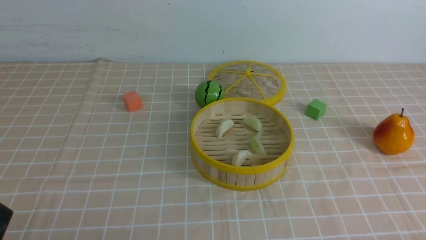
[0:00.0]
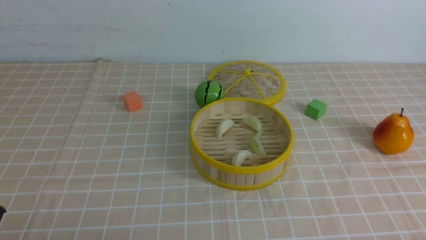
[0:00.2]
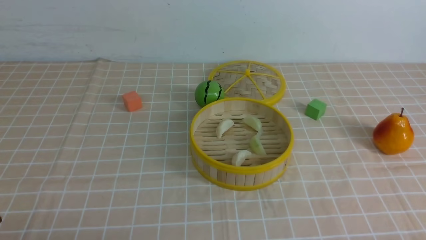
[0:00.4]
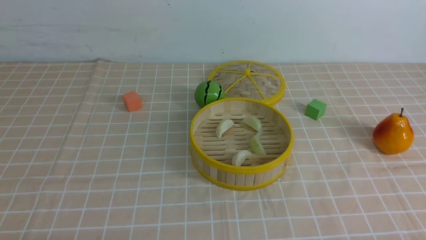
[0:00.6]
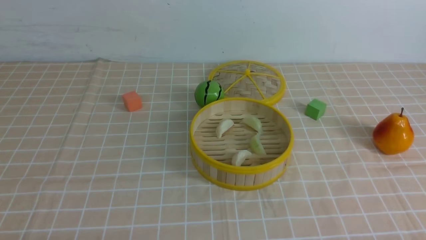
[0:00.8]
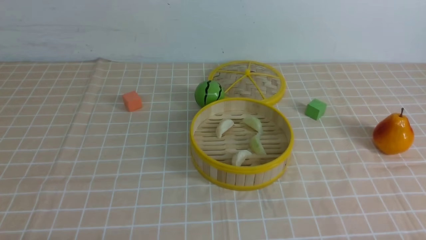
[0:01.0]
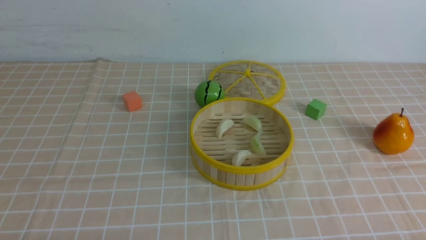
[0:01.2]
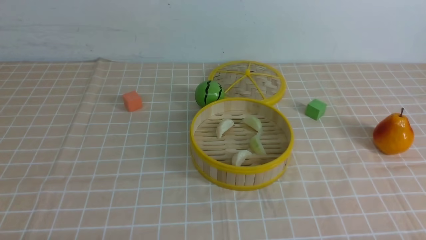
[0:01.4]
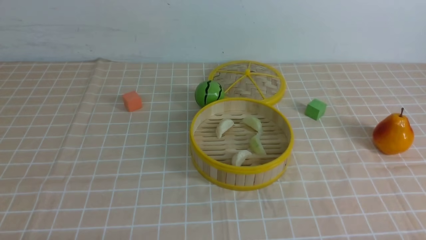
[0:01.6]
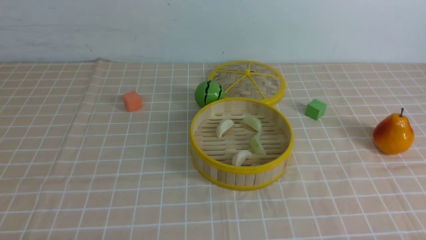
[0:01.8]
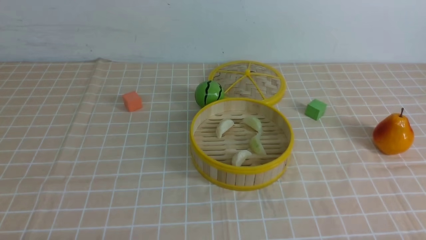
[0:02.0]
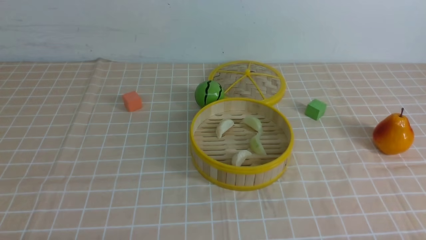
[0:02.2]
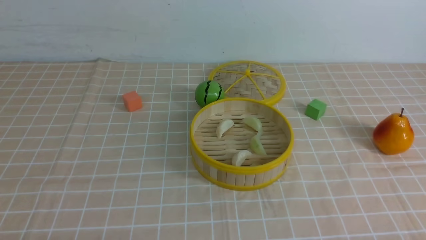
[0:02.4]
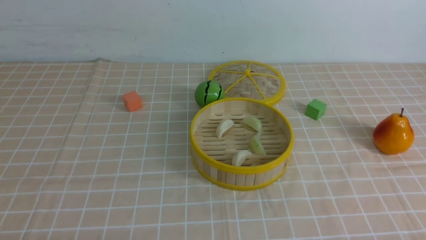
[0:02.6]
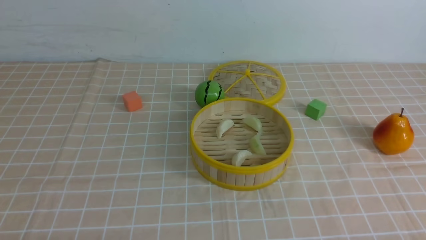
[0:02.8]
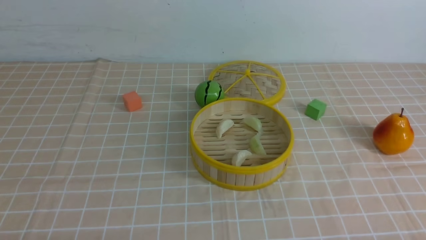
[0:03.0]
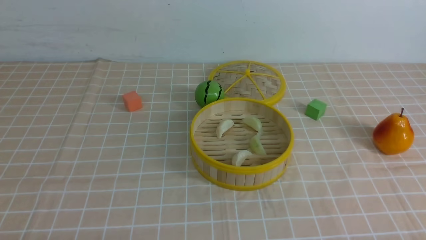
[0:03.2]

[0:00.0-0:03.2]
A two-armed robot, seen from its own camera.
Task of the whole recording: put the dumplings into the steamer on the table with the brown tablecloth.
0:01.6 to 0:03.2: Both grippers stay about where they are.

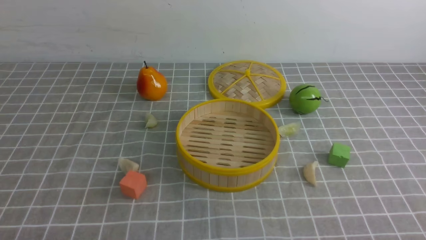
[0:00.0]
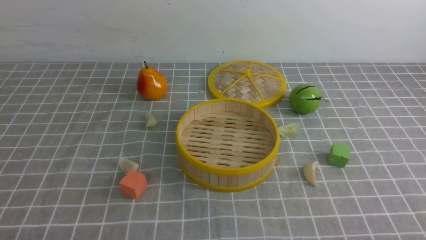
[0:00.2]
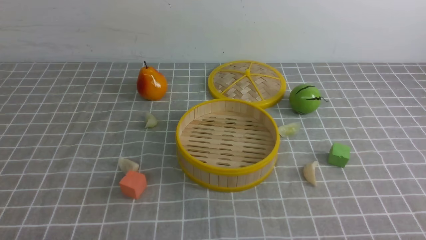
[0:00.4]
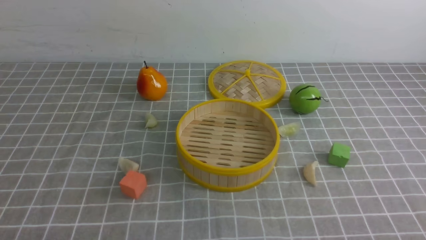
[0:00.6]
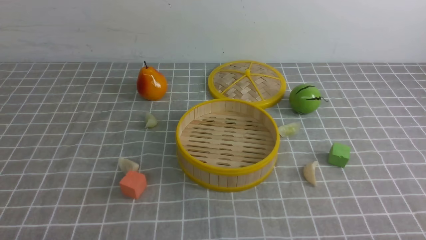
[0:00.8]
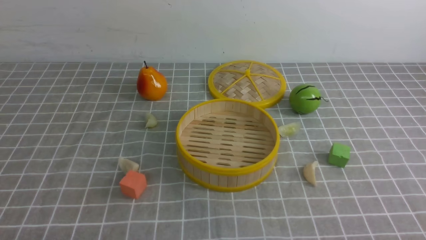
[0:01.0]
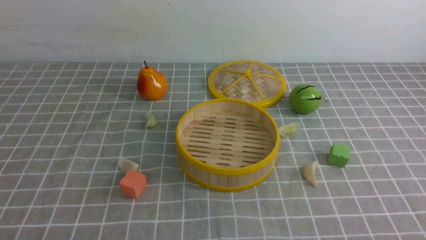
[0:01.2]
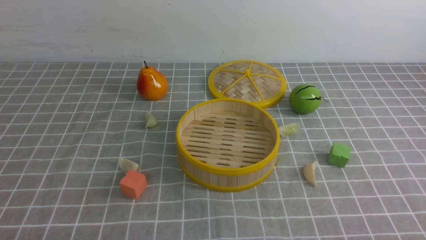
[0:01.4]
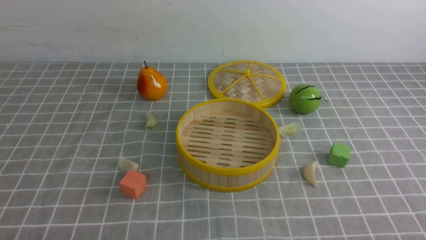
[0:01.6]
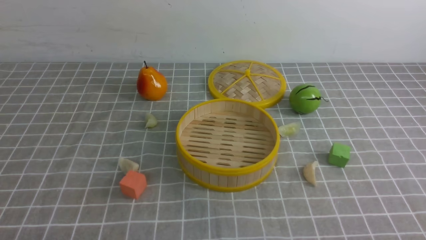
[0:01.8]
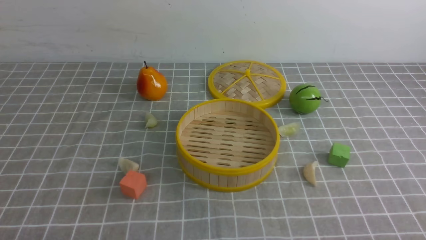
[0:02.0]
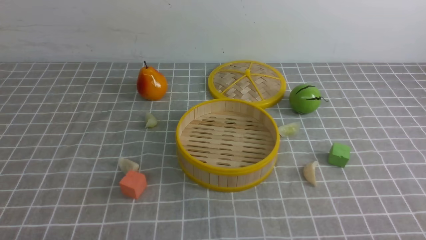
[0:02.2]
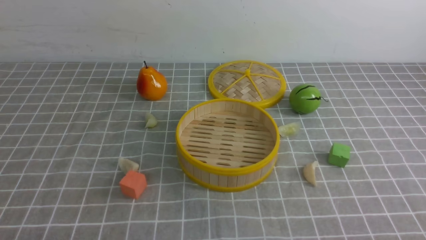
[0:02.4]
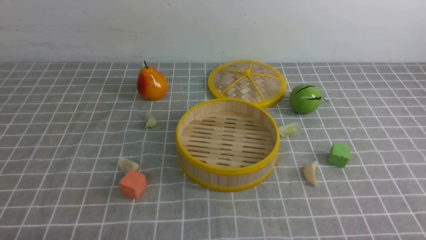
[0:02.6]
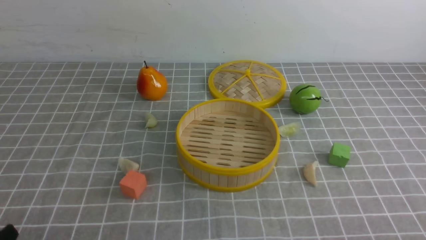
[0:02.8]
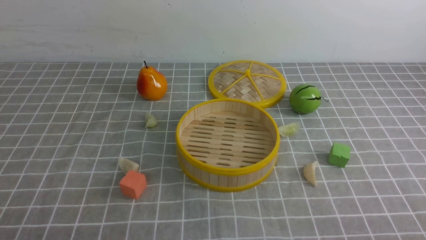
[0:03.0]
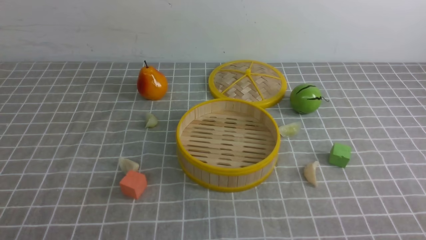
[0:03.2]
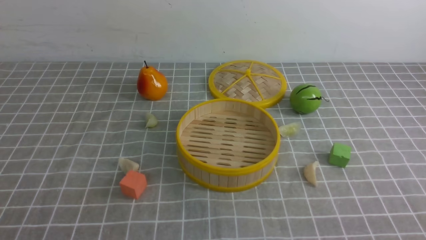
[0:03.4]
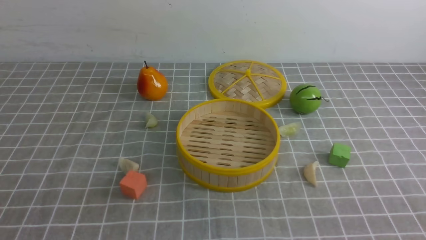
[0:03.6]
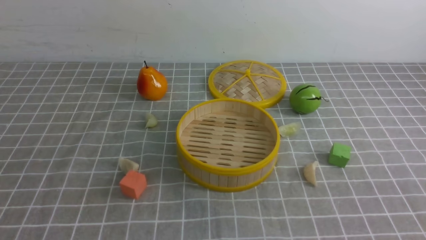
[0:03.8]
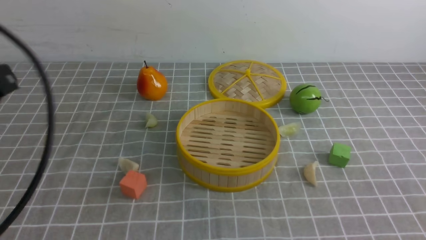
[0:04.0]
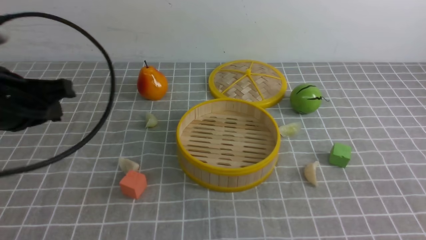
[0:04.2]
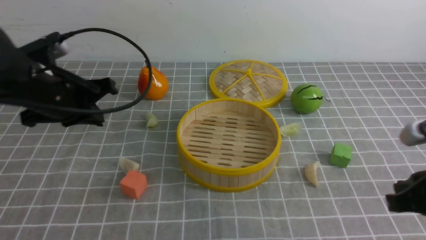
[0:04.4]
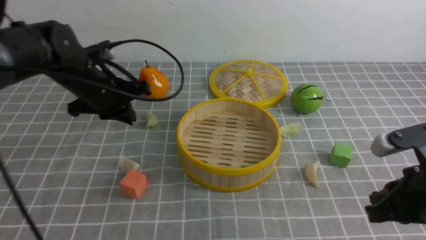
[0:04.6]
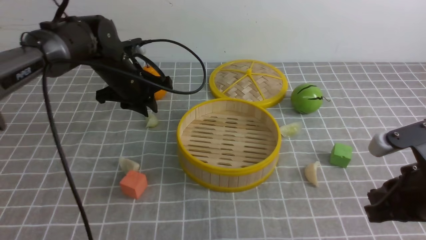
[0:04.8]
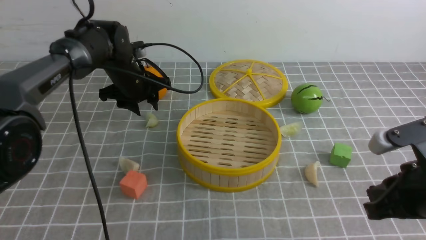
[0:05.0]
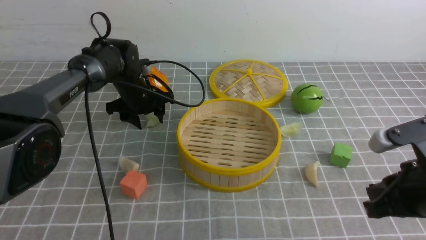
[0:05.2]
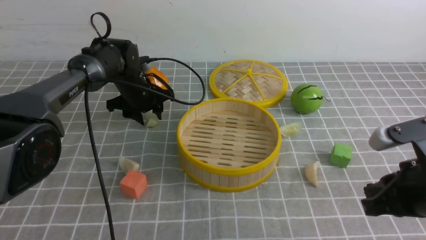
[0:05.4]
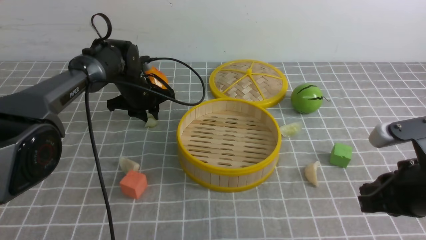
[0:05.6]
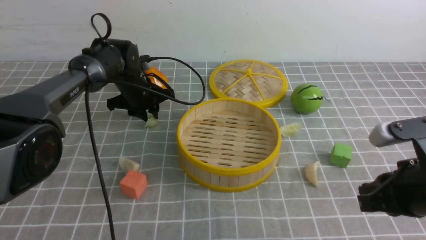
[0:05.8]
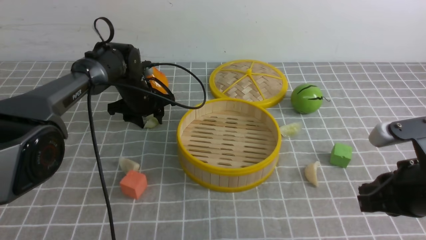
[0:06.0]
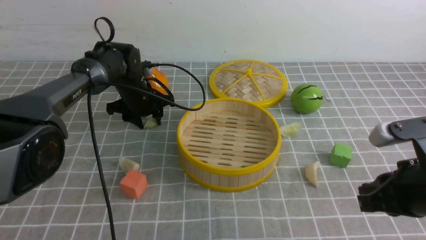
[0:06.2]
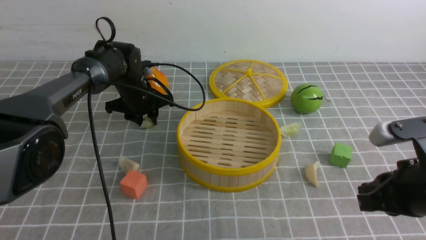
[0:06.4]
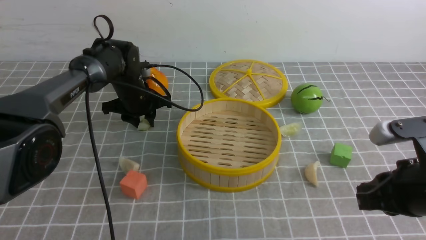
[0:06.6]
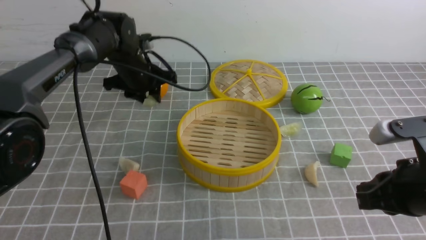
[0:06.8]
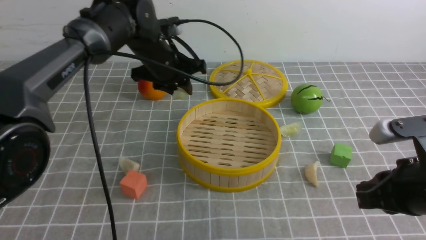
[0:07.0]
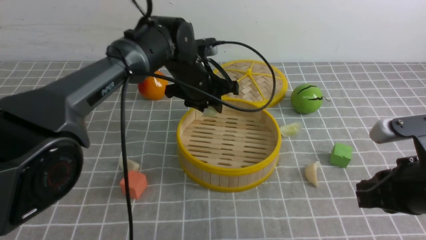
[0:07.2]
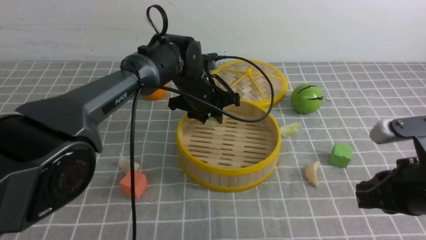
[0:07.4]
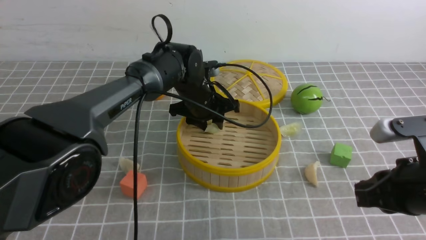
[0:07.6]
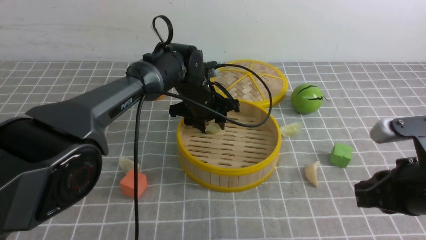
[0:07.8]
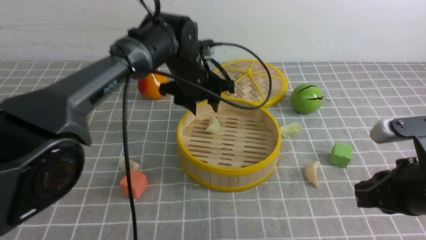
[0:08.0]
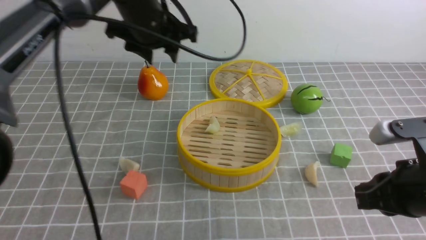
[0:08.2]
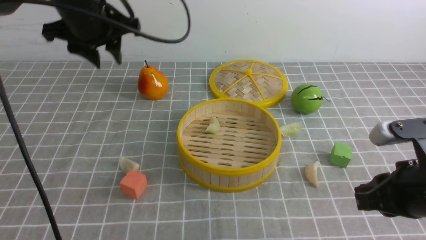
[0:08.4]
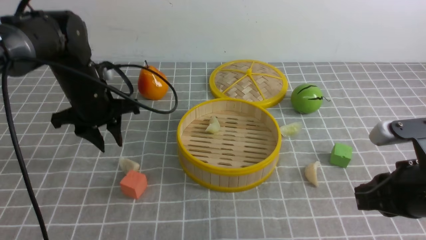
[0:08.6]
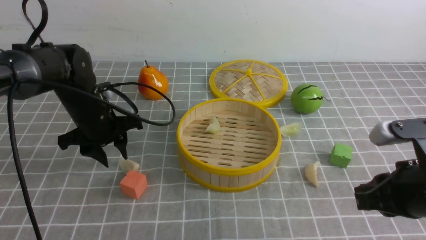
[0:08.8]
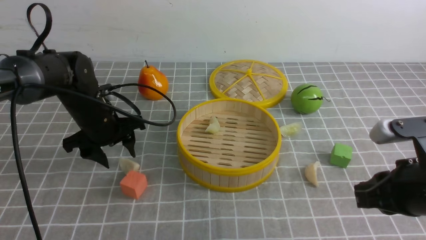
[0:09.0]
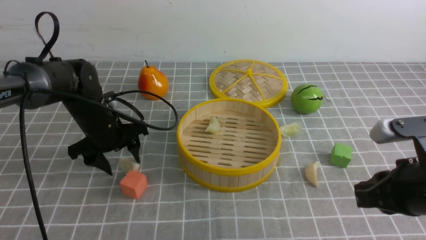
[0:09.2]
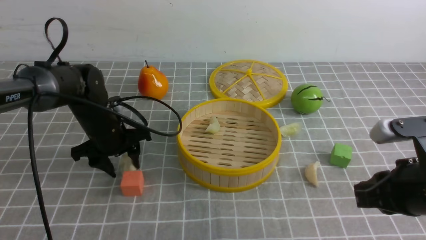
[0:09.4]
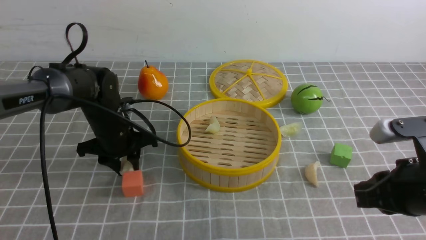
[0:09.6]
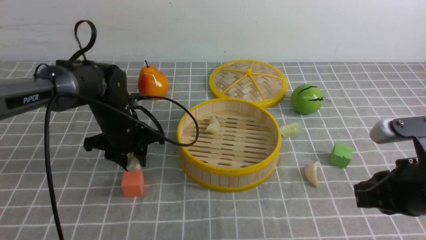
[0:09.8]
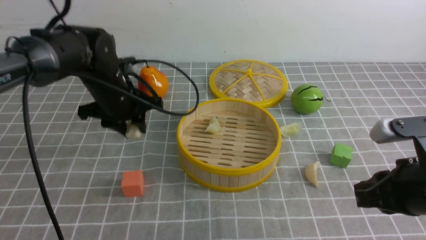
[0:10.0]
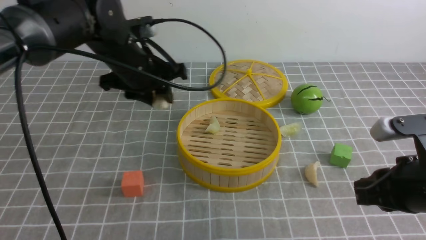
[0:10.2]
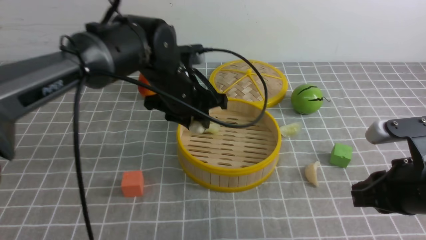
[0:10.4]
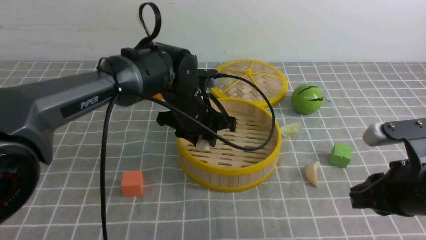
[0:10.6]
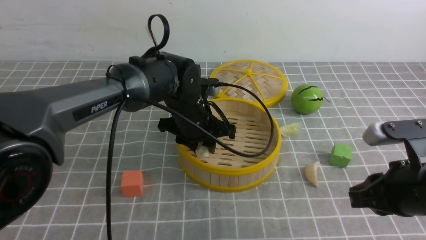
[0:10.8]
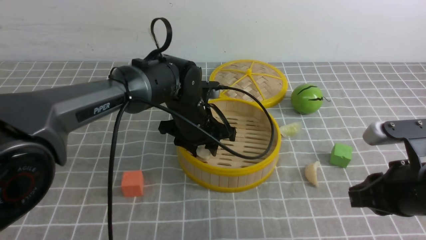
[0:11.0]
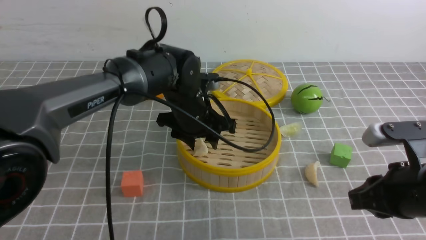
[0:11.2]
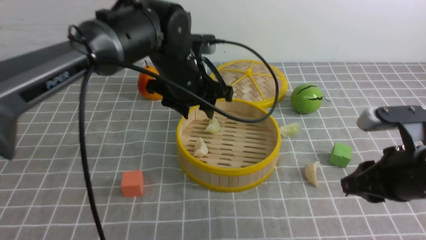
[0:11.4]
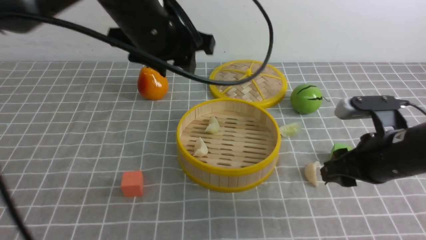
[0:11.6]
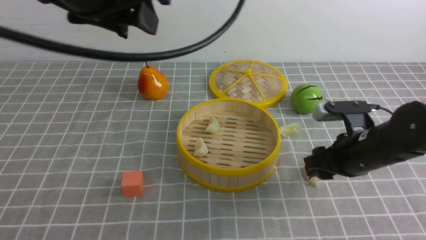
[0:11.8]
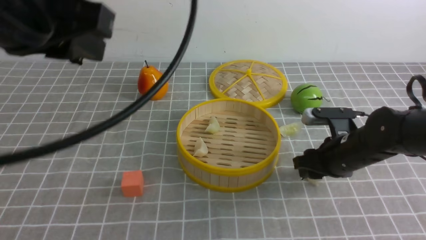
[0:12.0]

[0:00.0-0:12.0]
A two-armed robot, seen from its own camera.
Task of the whole recording: put the dumplings into the steamer on the table with the grey tablecloth.
Step, 0:00.0 to 0:06.6: use the left arm to grab a dumpling.
Step, 0:06.8 to 0:08.0: use the left arm to put the dumpling into the steamer.
Step, 0:08.2 to 0:09.8: use the left arm to grab a dumpling.
Step, 0:10.0 to 0:11.4: use the left arm to put the dumpling into the steamer.
0:00.0 to 0:01.6: Neither gripper changes place.
0:03.0 to 0:04.4: The left gripper is displaced forward by some 30 cm, and closes its fingers. Meanwhile the right gripper heads forward, covering about 15 cm, and closes its fingers.
0:04.4 to 0:06.0: The left gripper shifts about 20 cm forward and downward, and opens.
0:06.0 to 0:07.6: The left gripper goes roughly 15 cm to the right.
0:07.6 to 0:09.0: The left gripper is displaced to the left by approximately 15 cm.
0:09.0 to 0:10.4: The left gripper travels to the right and upward by approximately 15 cm.
0:10.4 to 0:12.0: The right gripper is displaced forward and downward by about 15 cm, and opens its fingers; the left gripper moves backward, upward and to the left, some 30 cm.

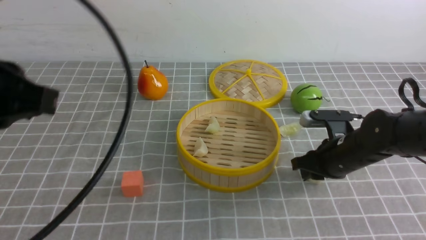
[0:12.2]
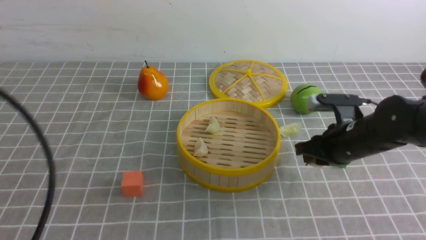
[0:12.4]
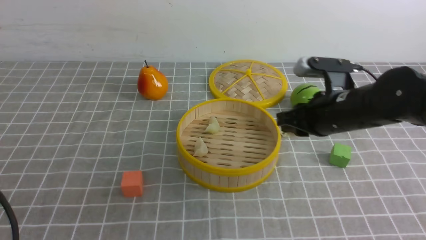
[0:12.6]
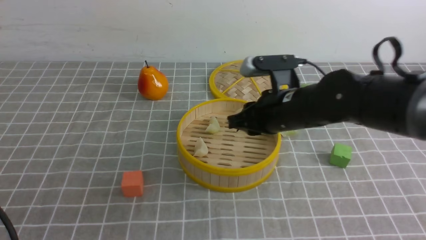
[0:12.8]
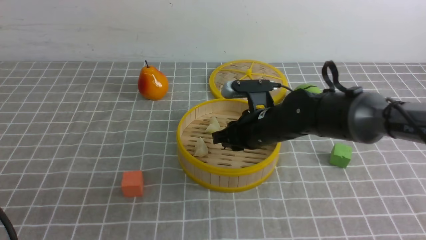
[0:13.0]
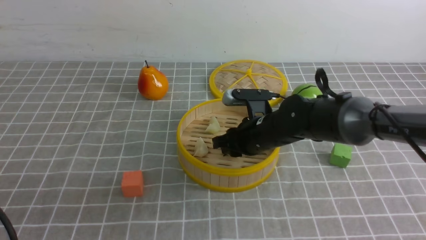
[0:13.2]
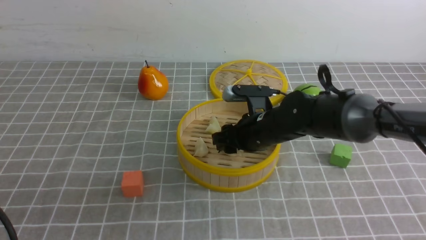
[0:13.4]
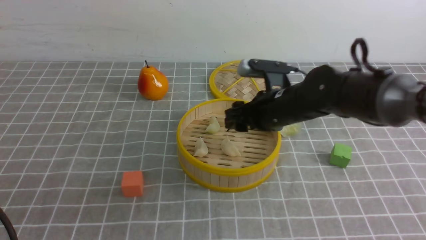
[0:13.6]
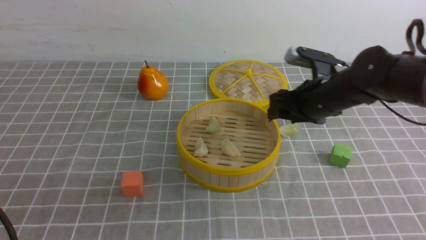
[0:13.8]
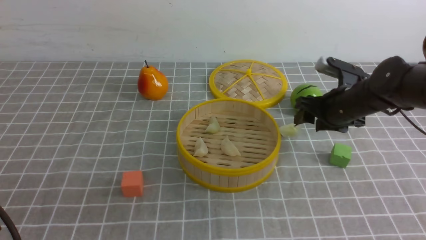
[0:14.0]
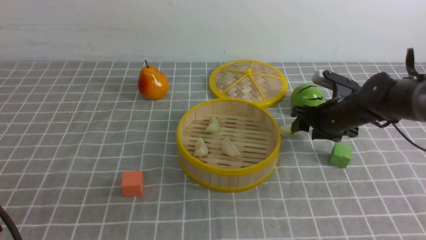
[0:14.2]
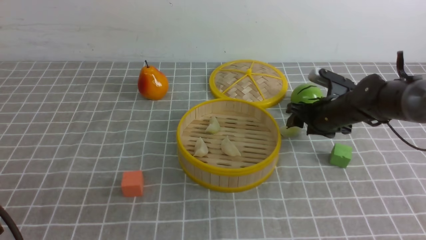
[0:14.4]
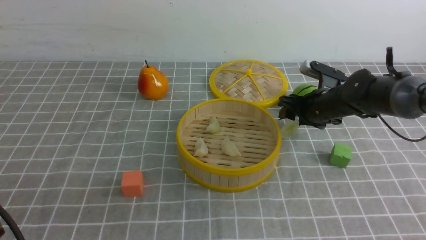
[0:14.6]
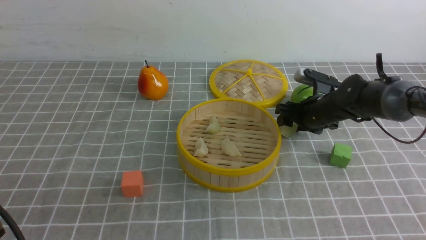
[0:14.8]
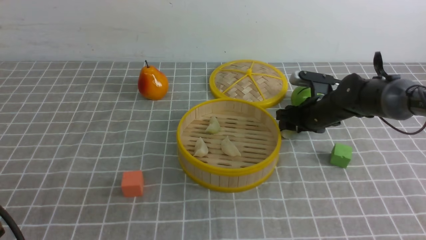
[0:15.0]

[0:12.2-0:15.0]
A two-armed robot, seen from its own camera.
Task of the whole recording: put the dumplings into the steamer on the table with the grey tablecloth.
Step, 0:12.6 to 0:13.4: use the right arm to put the dumpling into the steamer.
0:12.2 to 0:13.6: The left gripper goes some 15 cm downward and backward; the right gripper travels to the left and upward by roughly 10 cm, and opens its fingers.
0:13.6 to 0:15.0: The right gripper heads to the right, forward and downward, covering approximately 15 cm.
